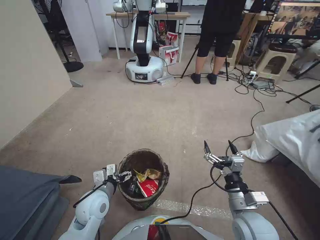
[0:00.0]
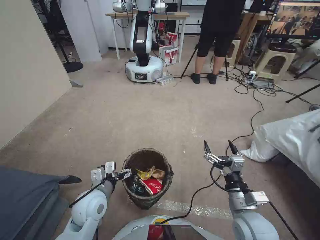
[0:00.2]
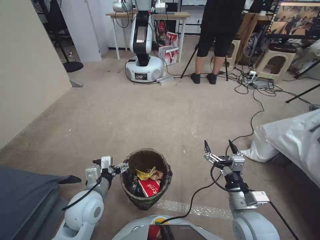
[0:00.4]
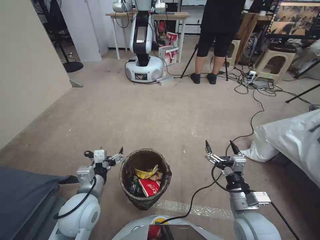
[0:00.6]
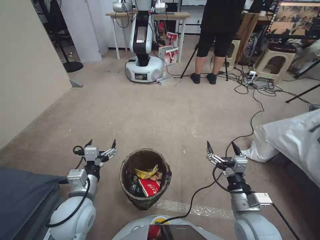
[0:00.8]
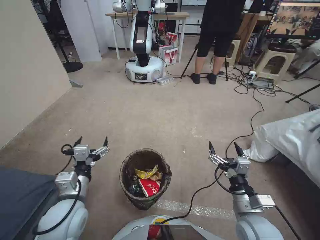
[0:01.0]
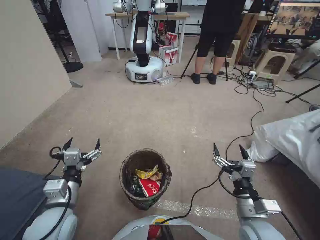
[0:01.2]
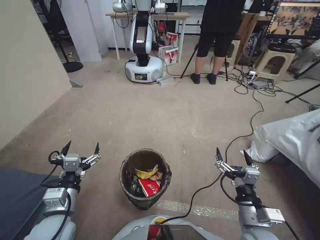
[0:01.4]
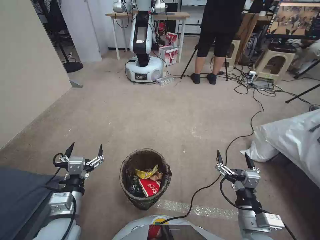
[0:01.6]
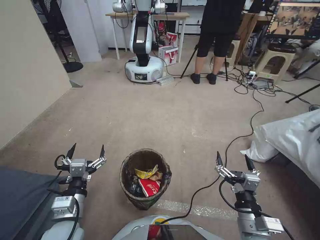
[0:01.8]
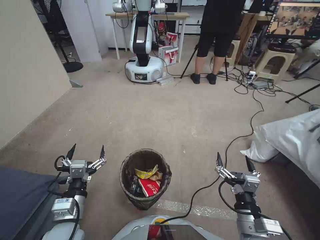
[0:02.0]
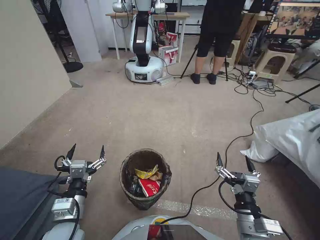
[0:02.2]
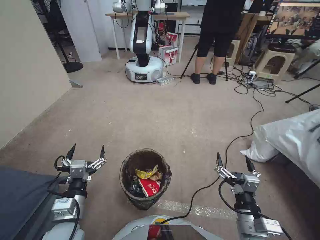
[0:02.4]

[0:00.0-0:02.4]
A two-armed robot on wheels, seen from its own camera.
Task of the whole recording: Pick up the trash bin, then pick up the garbage from the floor and place it into the trash bin.
0:00.0 to 0:01.2: The left gripper moves upward and backward, about 10 cm.
0:01.2 to 0:02.4: The left gripper ends up about 5 cm from where it was.
